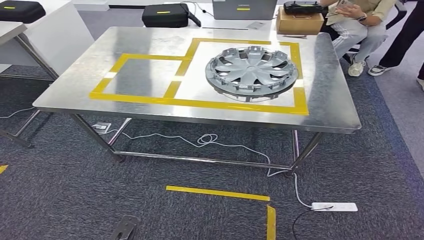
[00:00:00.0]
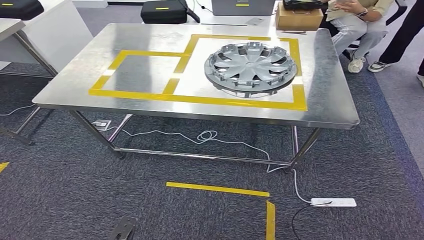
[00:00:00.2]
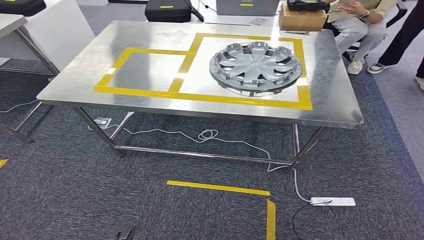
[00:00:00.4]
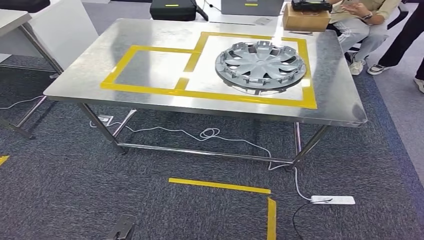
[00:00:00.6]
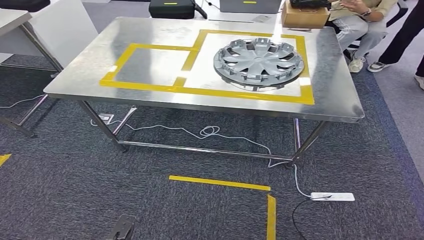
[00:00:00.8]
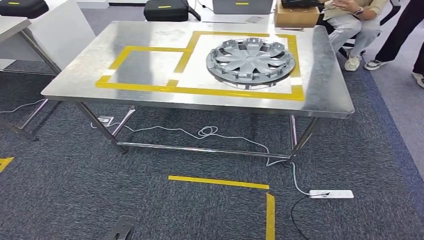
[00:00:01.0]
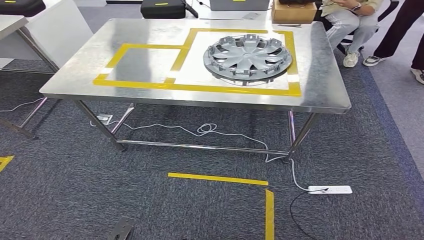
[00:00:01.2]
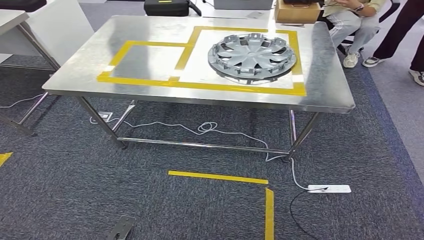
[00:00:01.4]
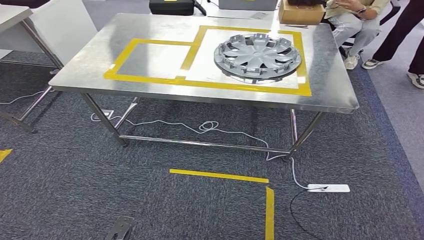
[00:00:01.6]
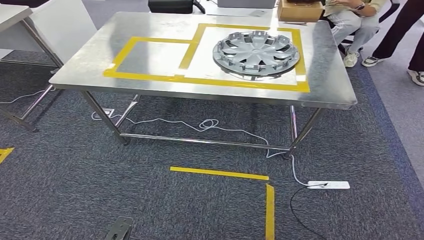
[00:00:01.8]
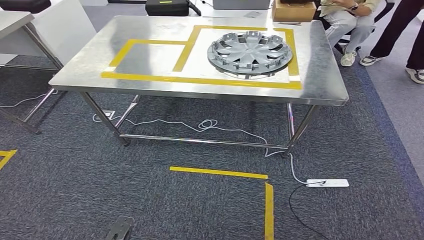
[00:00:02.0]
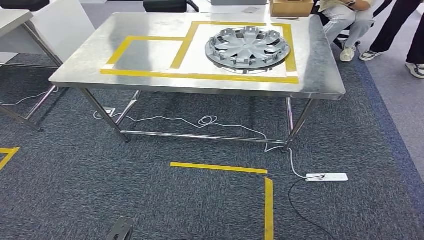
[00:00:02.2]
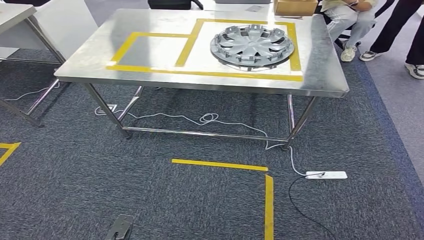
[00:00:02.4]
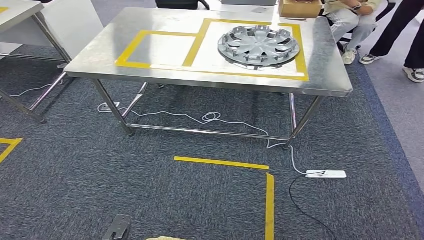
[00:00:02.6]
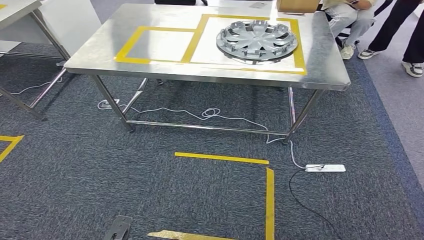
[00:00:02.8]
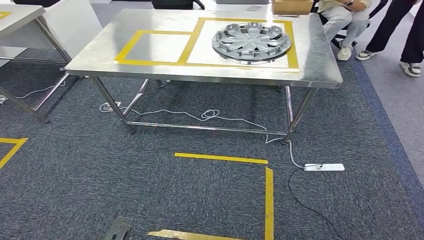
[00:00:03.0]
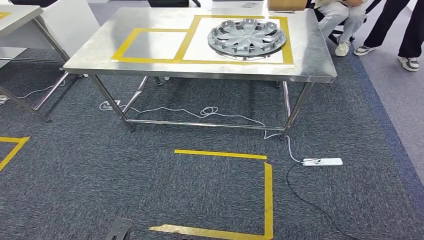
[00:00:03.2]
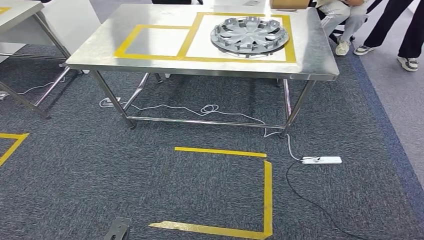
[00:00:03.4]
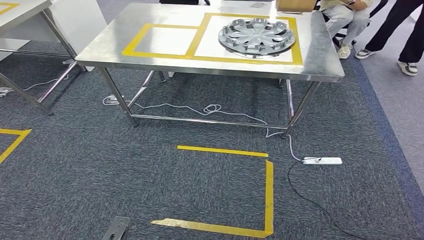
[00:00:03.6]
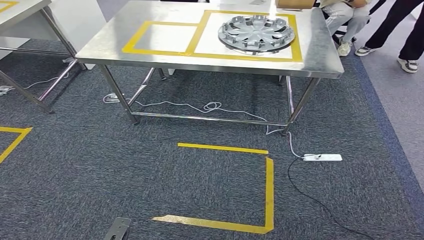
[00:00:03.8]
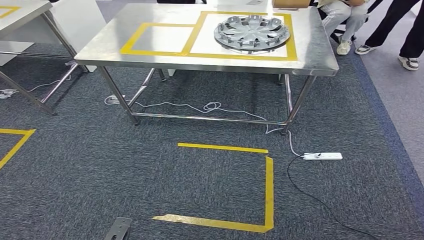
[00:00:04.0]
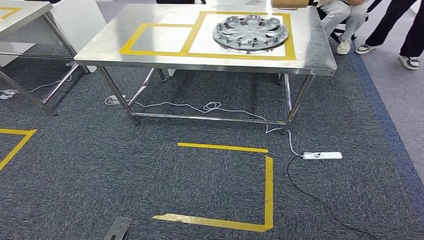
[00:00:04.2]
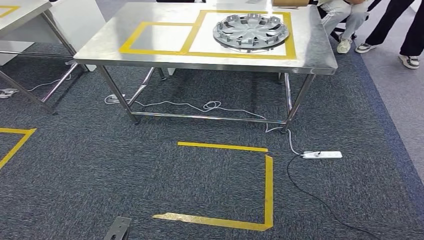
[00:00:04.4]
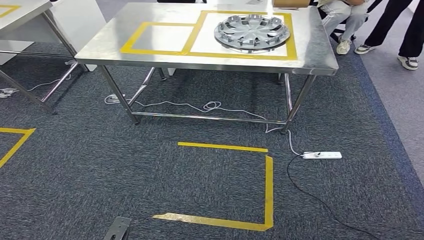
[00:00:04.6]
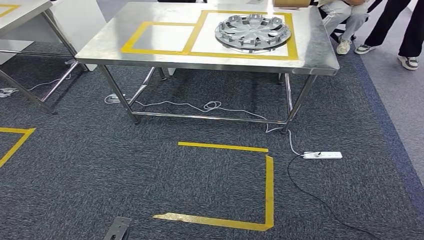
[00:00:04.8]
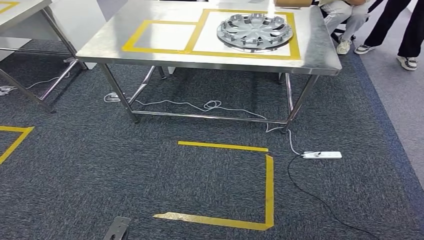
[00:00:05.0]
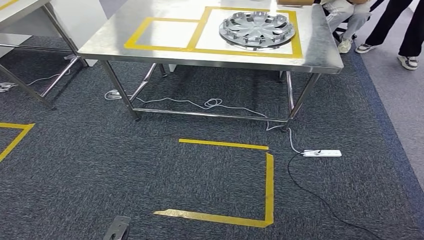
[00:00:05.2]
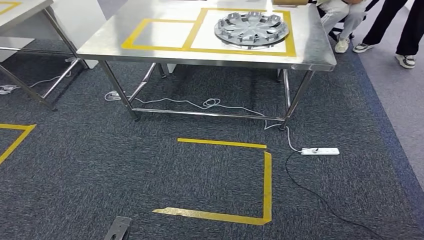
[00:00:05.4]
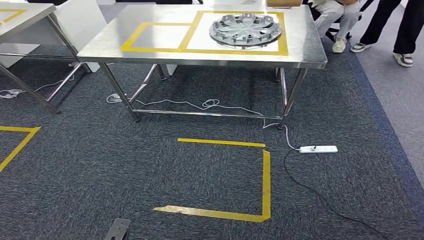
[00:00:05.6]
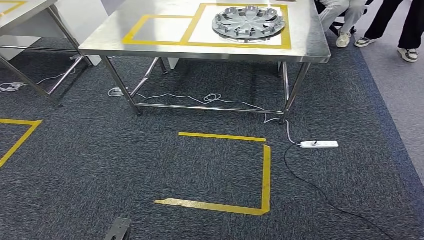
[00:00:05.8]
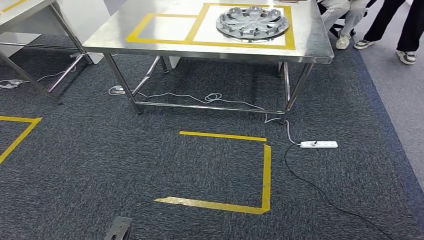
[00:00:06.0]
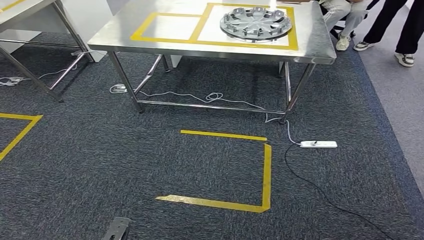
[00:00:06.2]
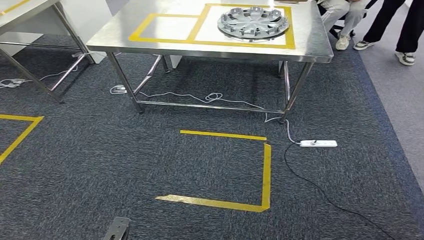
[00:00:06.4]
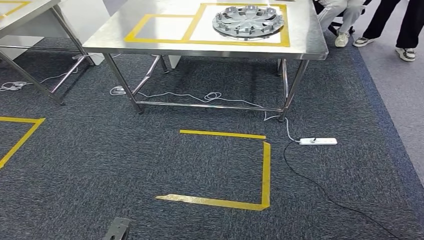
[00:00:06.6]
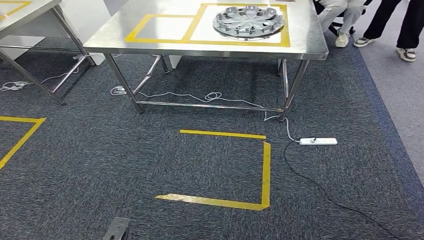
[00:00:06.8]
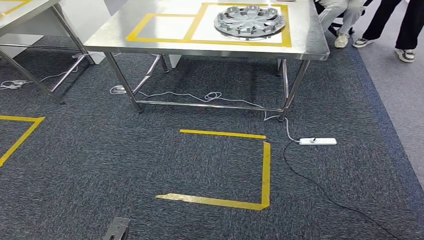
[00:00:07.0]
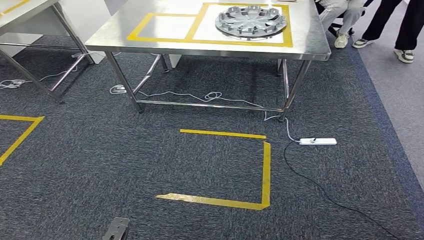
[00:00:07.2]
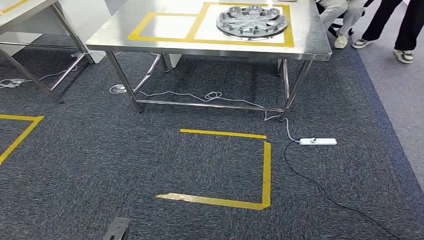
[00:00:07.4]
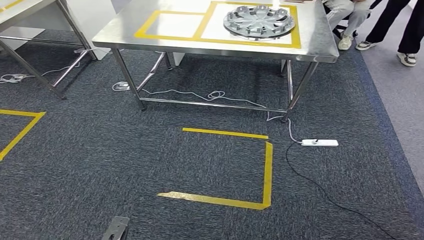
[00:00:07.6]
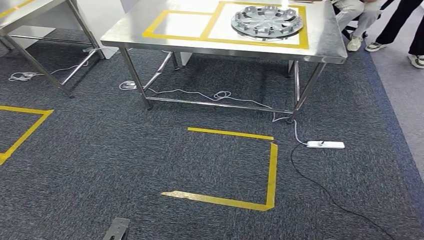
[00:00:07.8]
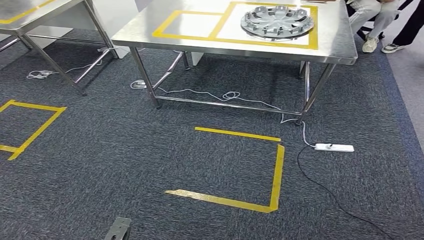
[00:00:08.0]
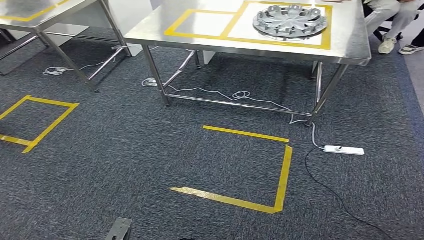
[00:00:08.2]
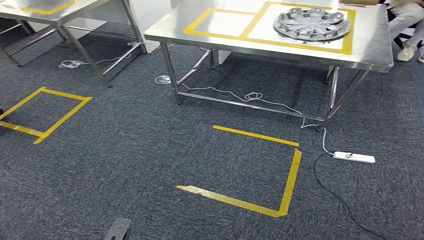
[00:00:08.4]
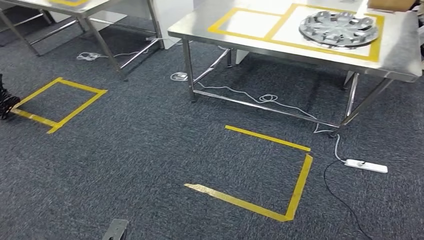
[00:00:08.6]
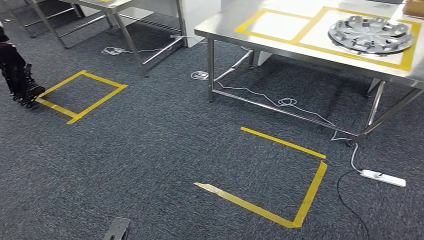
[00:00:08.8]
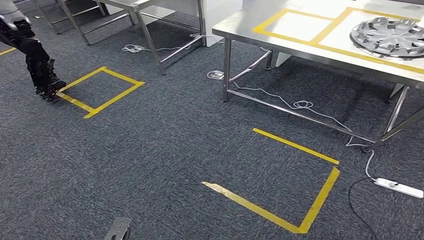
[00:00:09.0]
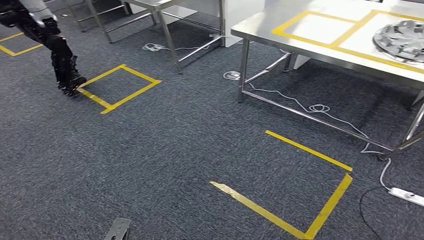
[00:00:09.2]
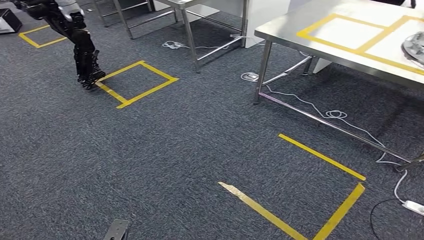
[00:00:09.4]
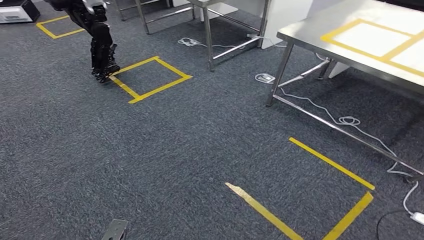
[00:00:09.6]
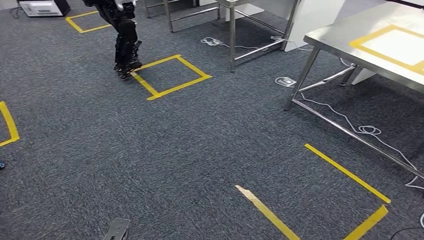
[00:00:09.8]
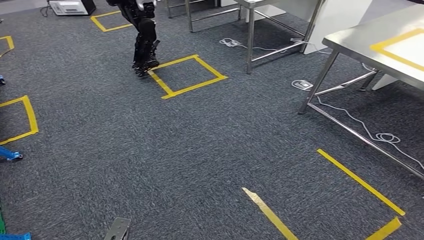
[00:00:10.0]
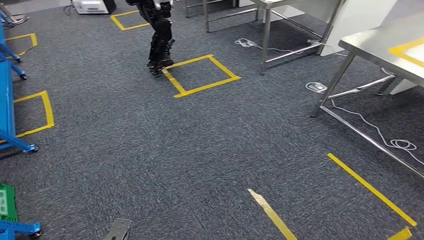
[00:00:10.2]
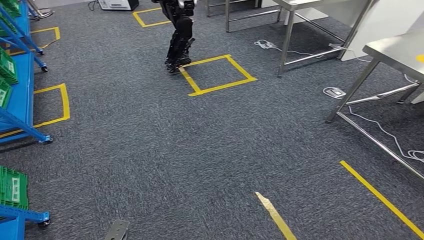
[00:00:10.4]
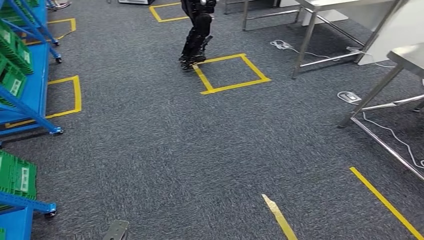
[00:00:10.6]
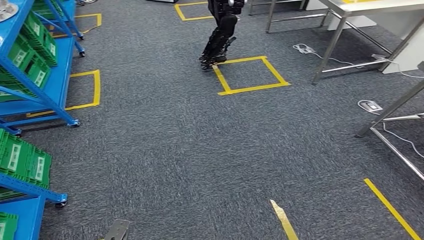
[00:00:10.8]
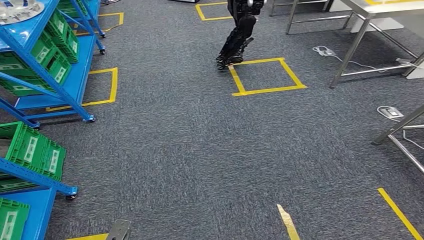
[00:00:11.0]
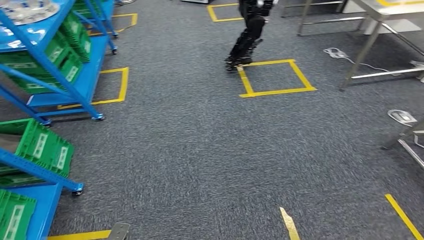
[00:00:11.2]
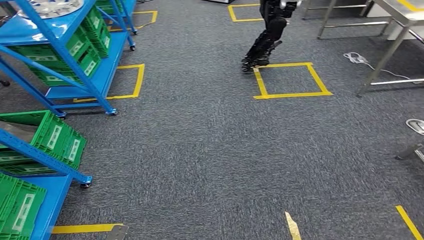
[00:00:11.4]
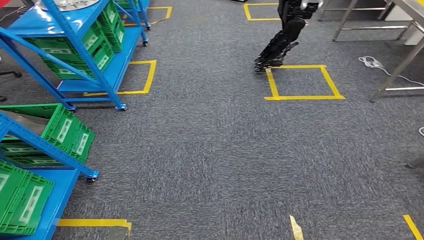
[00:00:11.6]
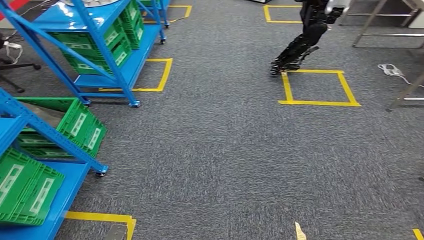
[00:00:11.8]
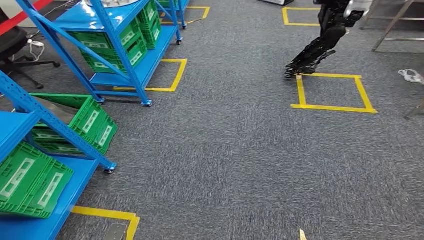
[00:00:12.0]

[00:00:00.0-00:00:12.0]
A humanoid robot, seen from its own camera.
00:00:06.0 to 00:00:07.6: The two hands keep their place.

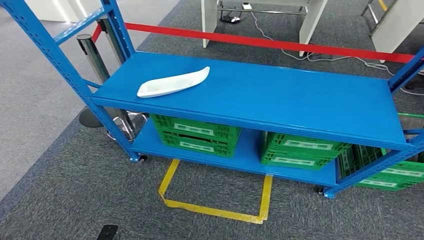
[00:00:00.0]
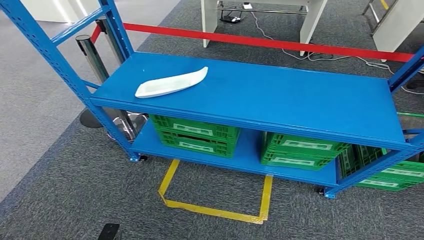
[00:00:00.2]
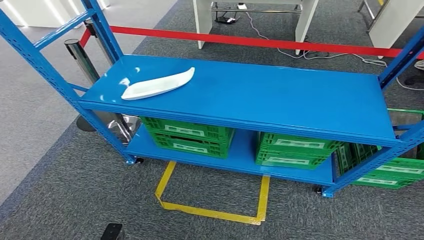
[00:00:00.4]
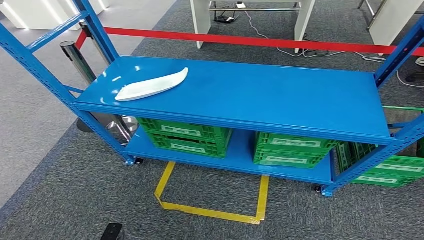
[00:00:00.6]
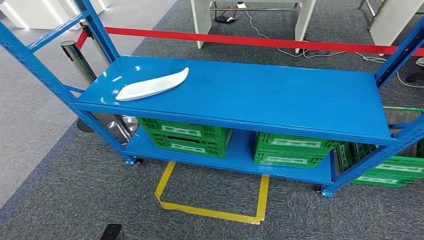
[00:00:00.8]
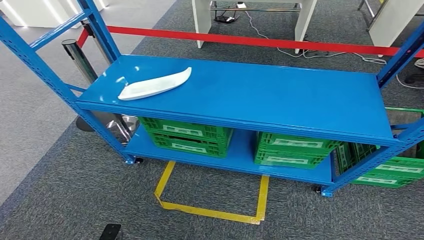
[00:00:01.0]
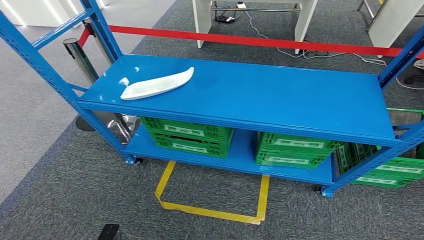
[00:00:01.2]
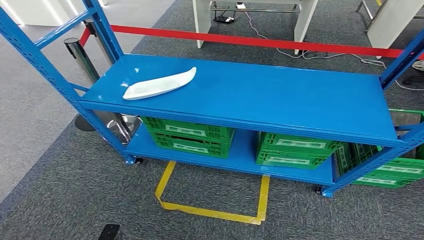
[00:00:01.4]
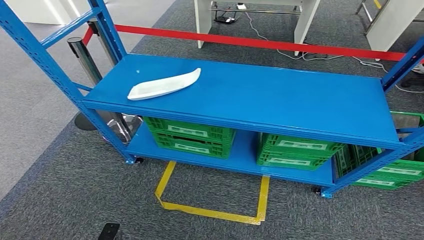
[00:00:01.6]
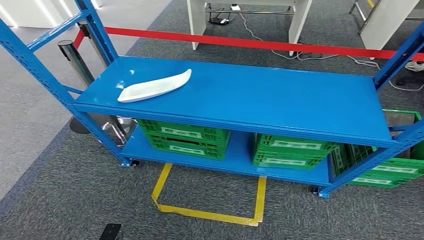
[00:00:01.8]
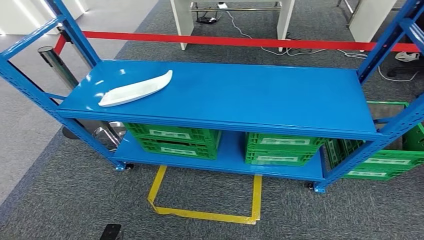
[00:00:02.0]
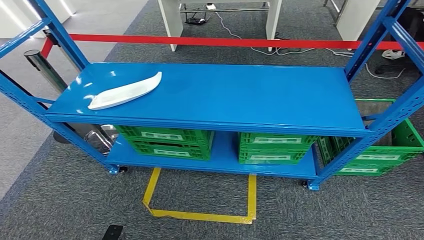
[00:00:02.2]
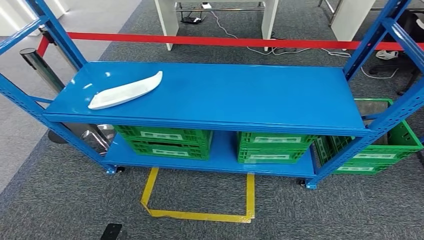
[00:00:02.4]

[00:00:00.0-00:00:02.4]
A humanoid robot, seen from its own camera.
Step, 00:00:00.0 to 00:00:02.4: Move to the initial position of the workbench.
